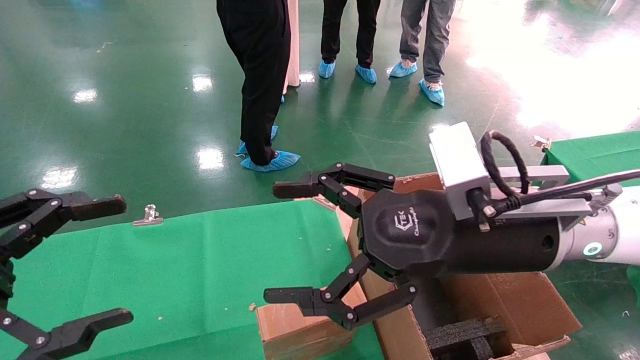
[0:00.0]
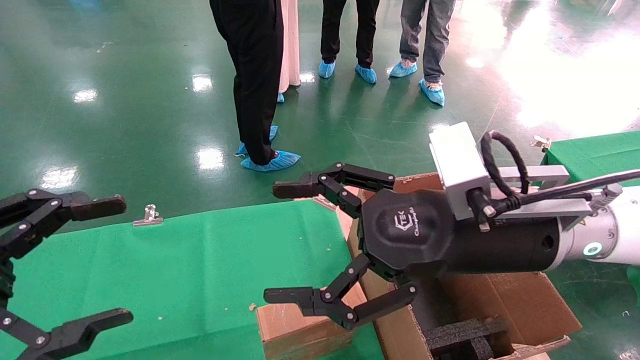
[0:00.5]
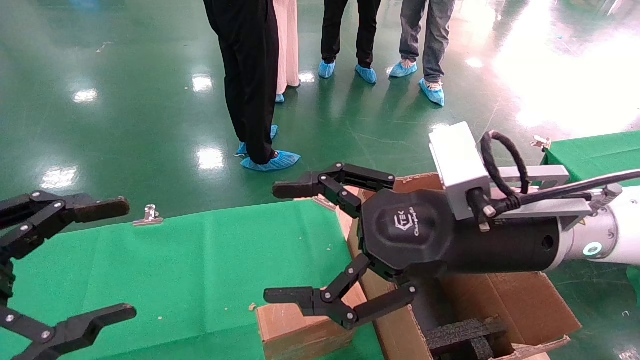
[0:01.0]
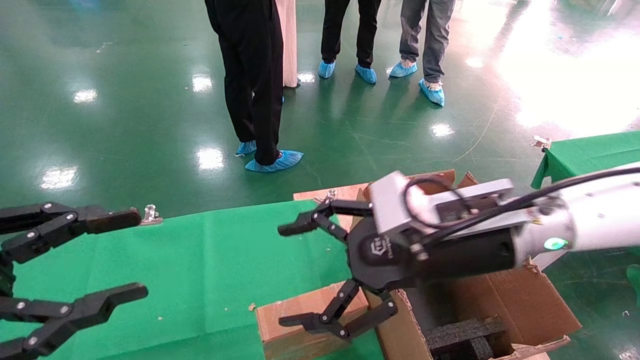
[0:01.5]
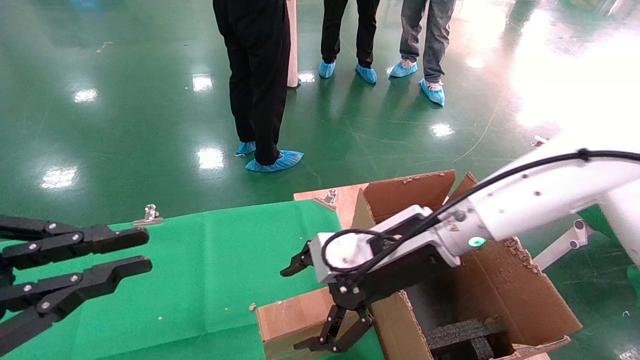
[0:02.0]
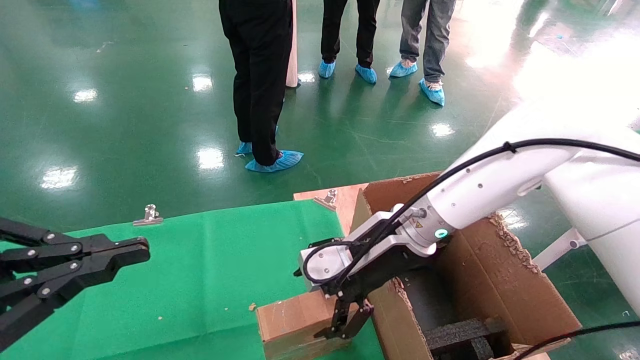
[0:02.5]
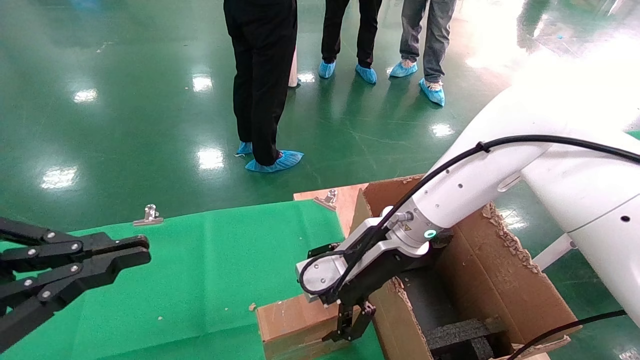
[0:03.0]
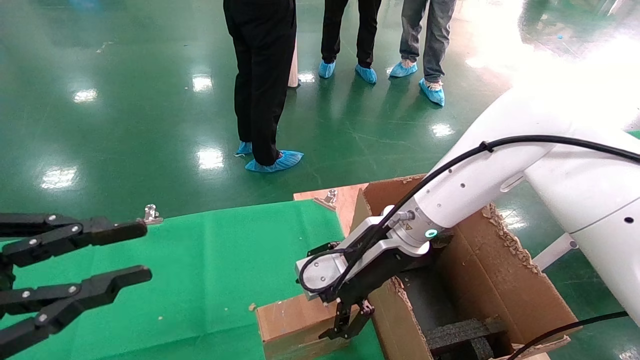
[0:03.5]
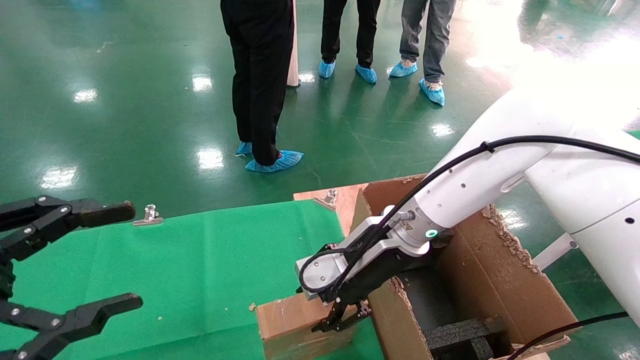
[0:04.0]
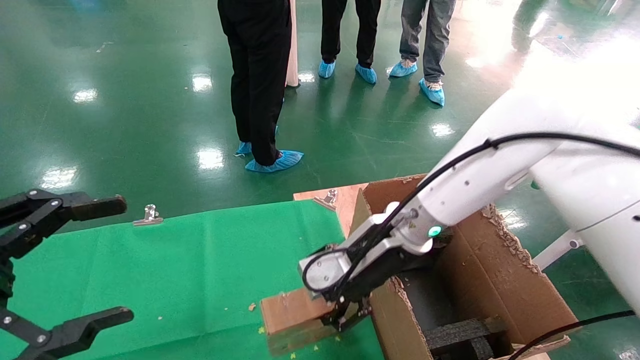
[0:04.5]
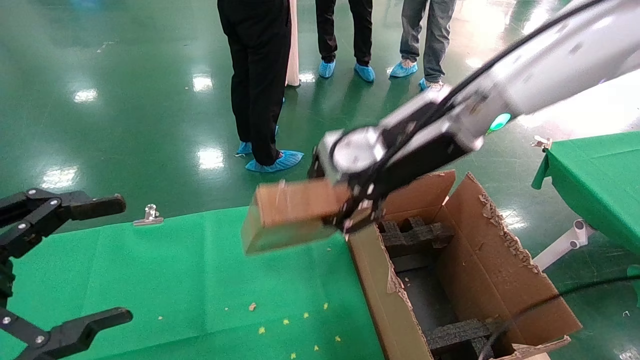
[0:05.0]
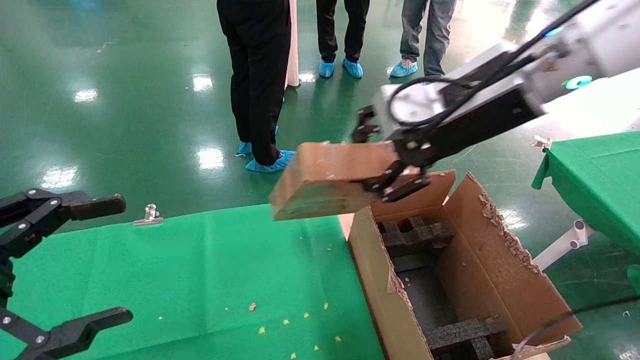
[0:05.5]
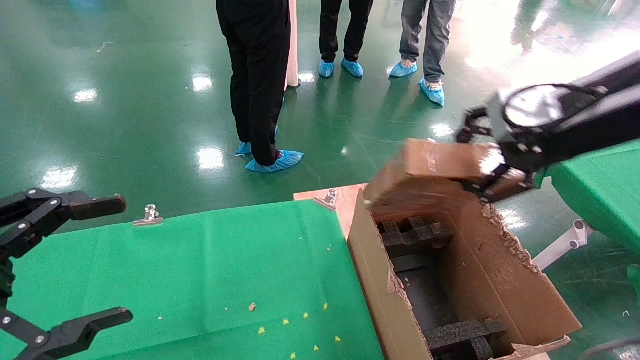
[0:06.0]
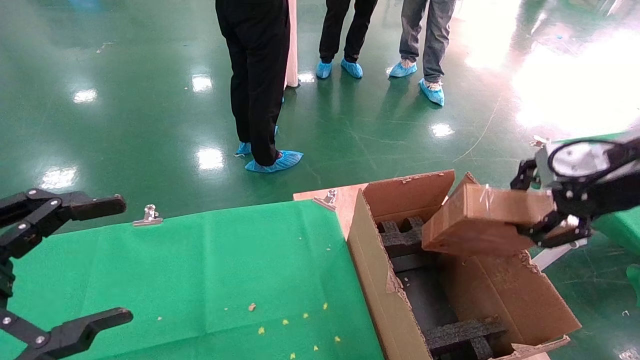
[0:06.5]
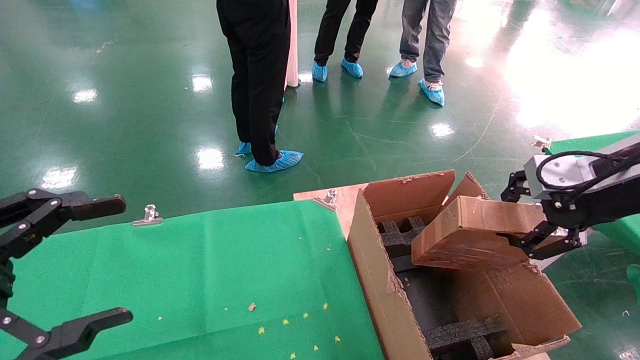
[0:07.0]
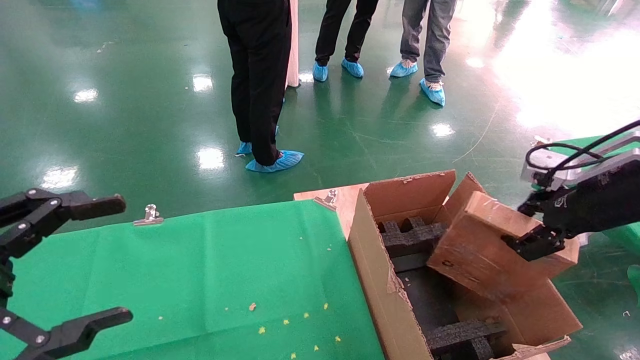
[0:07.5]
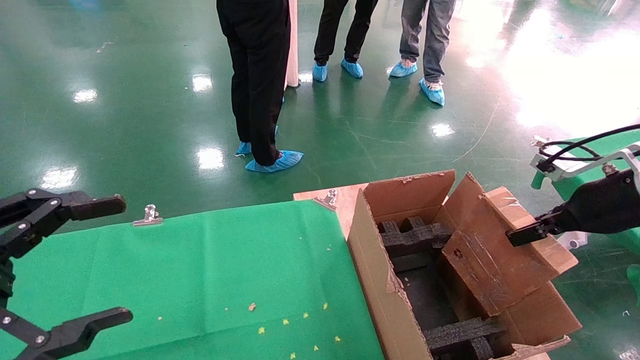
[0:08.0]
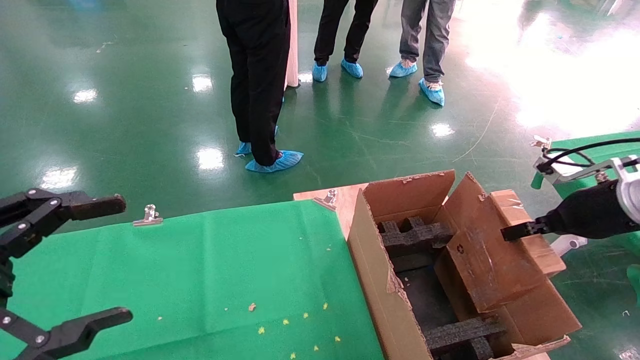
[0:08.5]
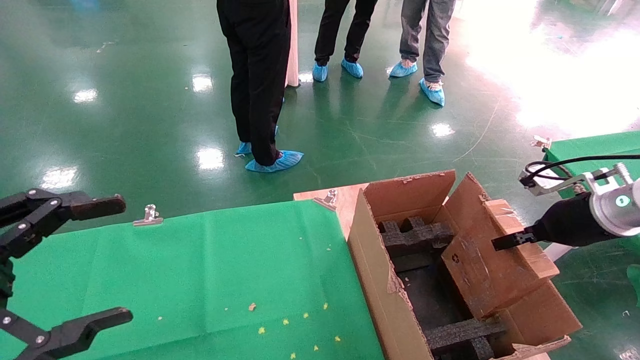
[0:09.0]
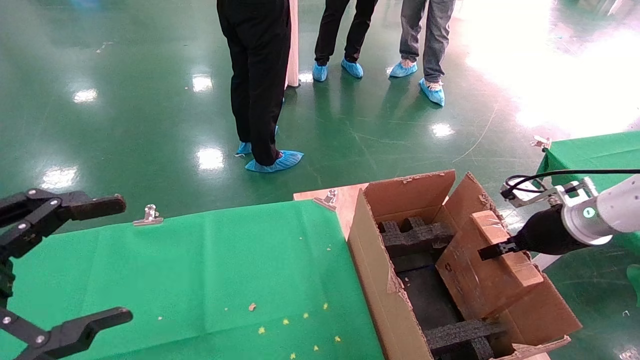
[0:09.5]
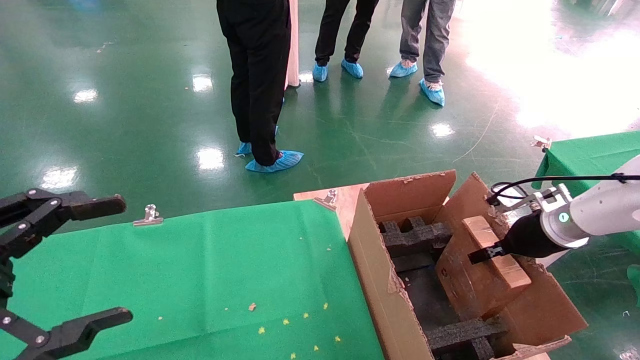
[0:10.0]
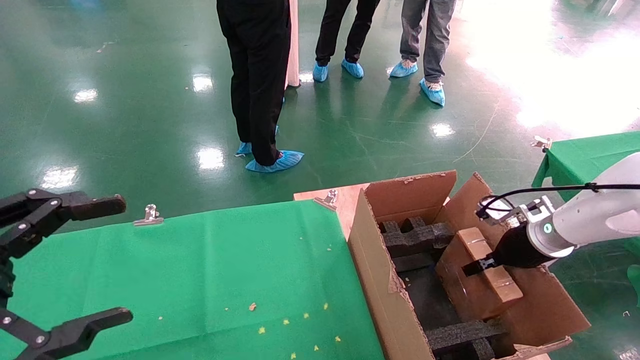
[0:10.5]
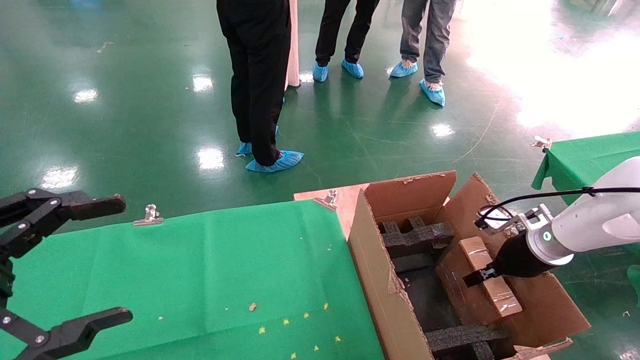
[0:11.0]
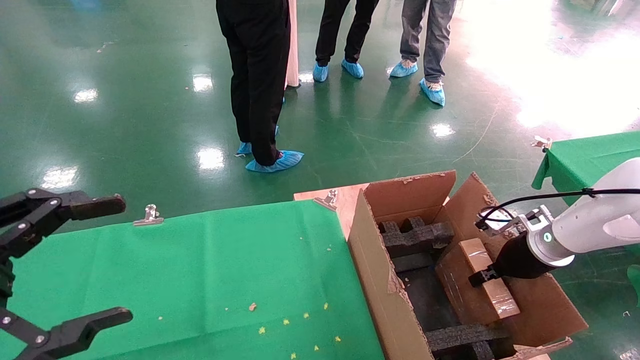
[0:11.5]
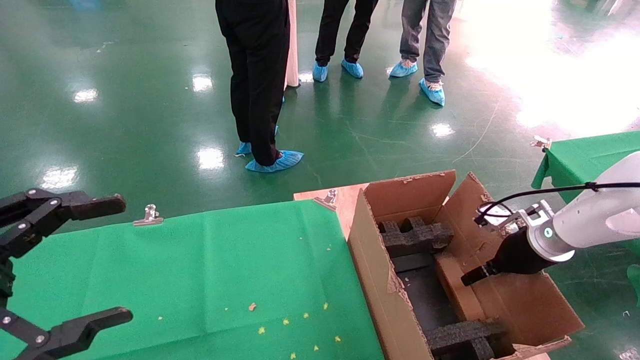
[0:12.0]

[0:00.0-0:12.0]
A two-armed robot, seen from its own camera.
Task of the whole recording: using a robotic arm to pick up a cardboard box and palace it the carton.
Step, 0:01.5 to 0:04.0: Pick up the mouse and the power cord paper box.
0:00.0 to 0:02.0: The right gripper is displaced forward by some 10 cm. Meanwhile the left gripper closes its fingers.
0:02.0 to 0:04.0: The right gripper shifts by about 5 cm, and closes up.
0:04.0 to 0:06.0: The left gripper opens up. Meanwhile the right gripper shifts approximately 30 cm to the right, upward and backward, and closes.
0:06.0 to 0:08.0: The right gripper moves downward and to the right, about 15 cm.
0:08.0 to 0:10.0: The right gripper travels downward and forward by approximately 15 cm.
0:10.0 to 0:12.0: The right gripper opens its fingers.

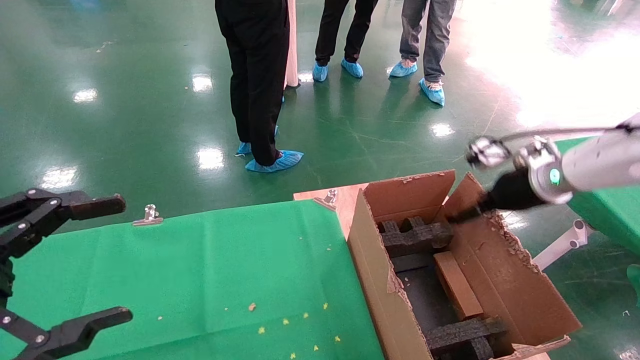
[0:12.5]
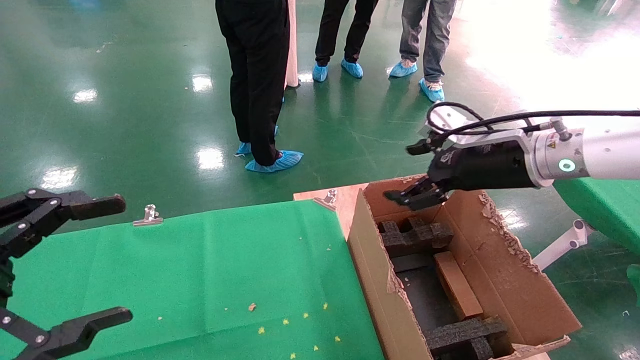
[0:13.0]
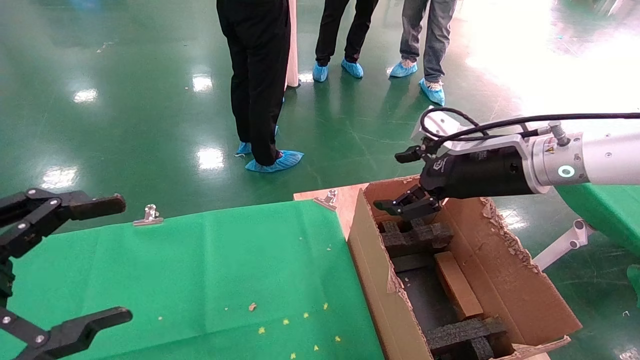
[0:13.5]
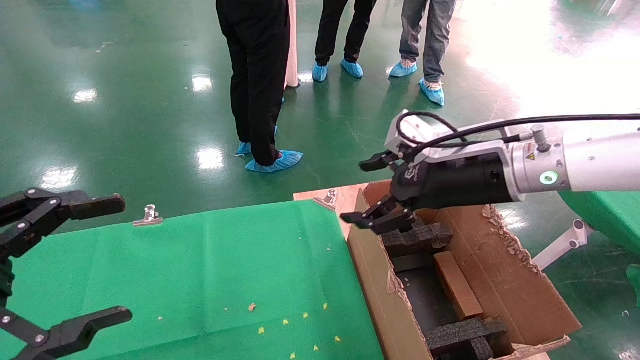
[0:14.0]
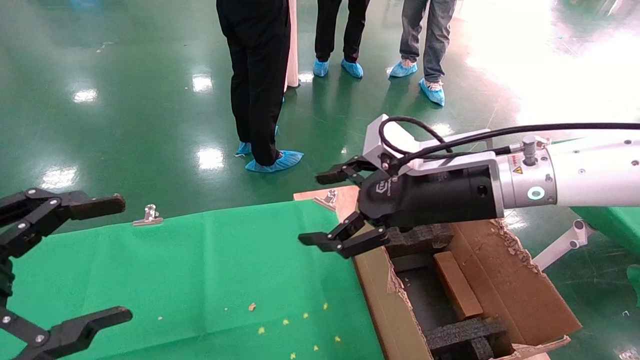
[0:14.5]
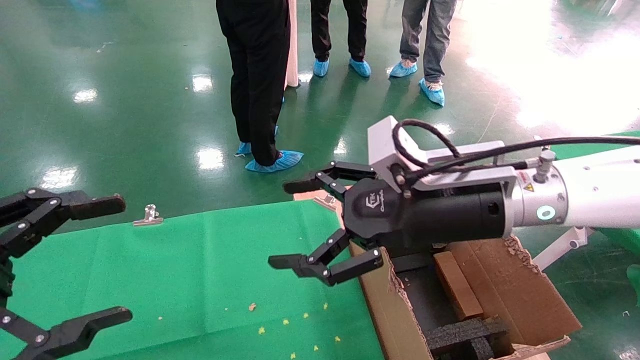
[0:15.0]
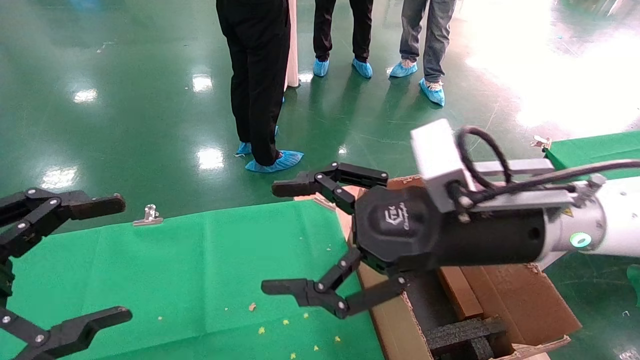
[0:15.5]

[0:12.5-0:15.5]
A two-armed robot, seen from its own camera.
Task of the whole recording: using a robotic arm to pick up a cardboard box and palace it the carton.
0:12.5 to 0:14.0: The right gripper is displaced to the left and backward by about 15 cm.
0:14.0 to 0:15.5: The right gripper shifts approximately 10 cm backward and to the left.

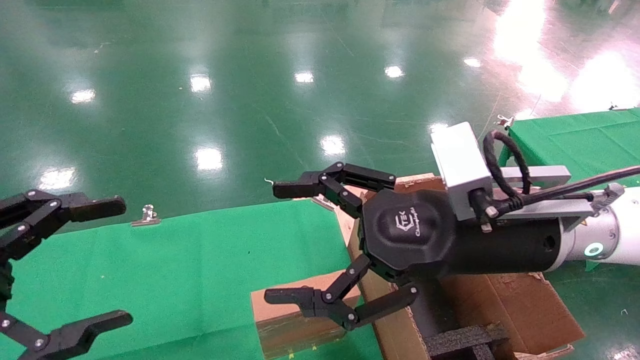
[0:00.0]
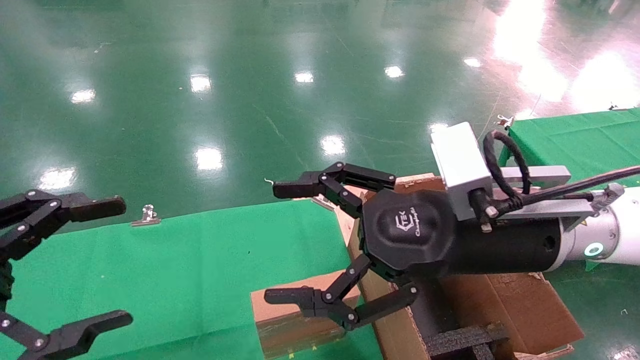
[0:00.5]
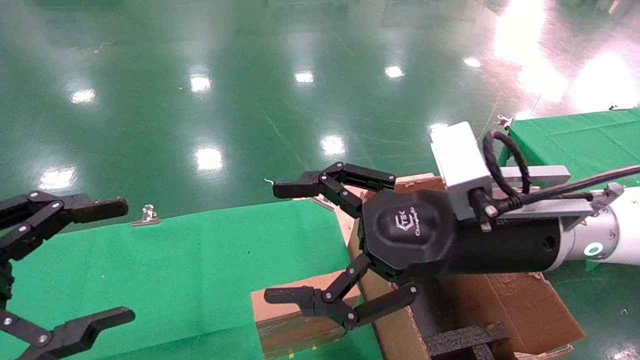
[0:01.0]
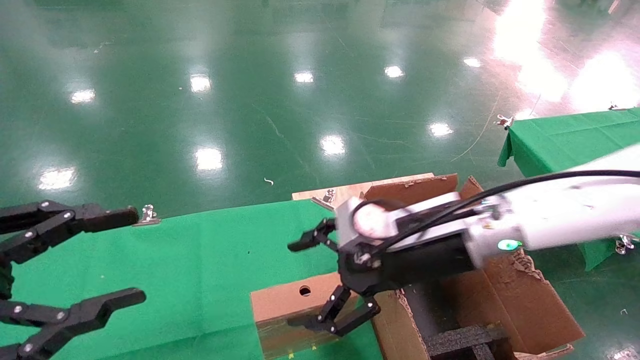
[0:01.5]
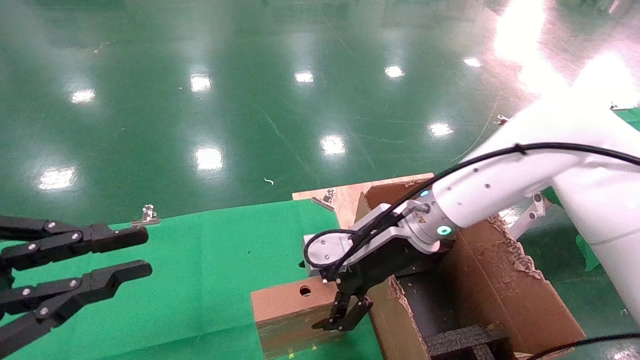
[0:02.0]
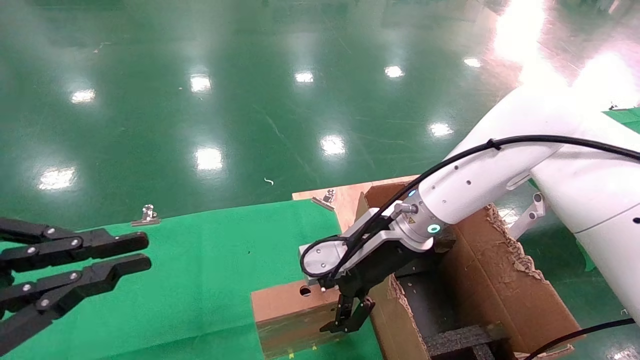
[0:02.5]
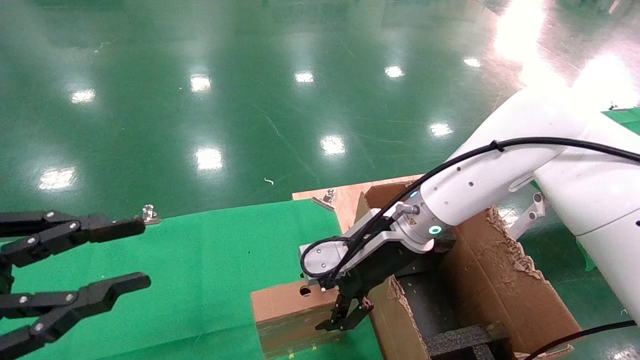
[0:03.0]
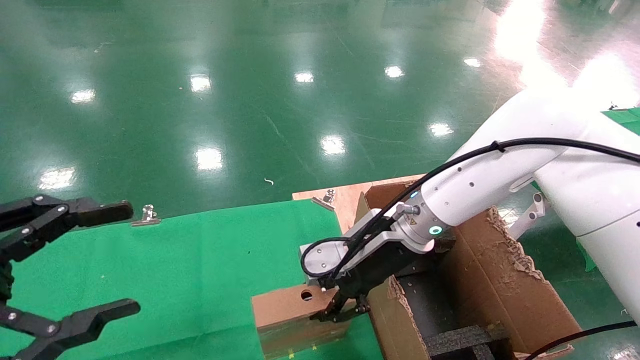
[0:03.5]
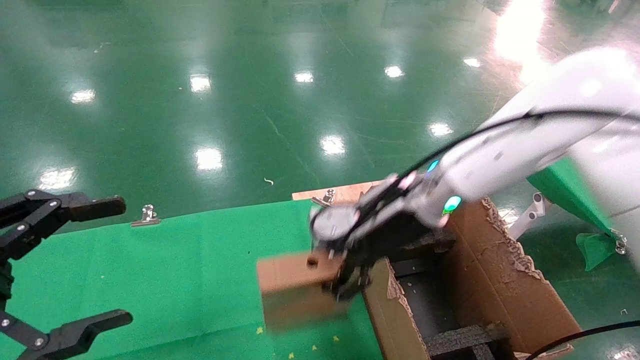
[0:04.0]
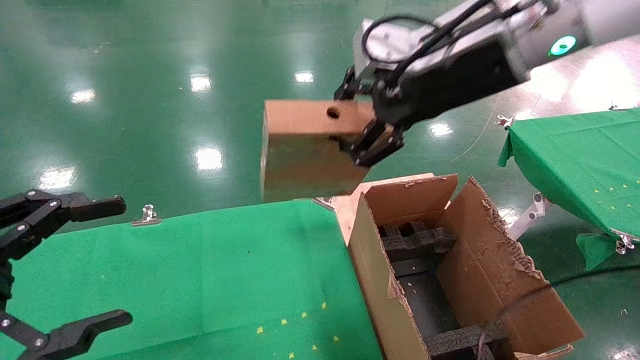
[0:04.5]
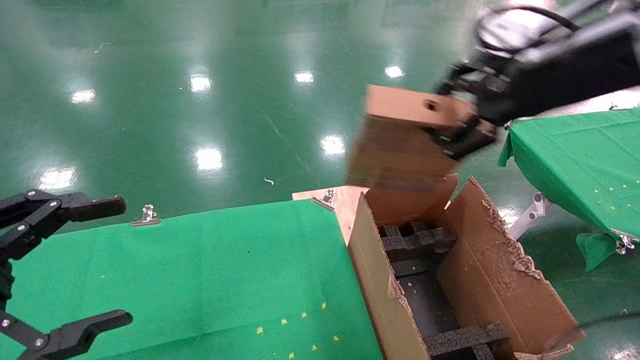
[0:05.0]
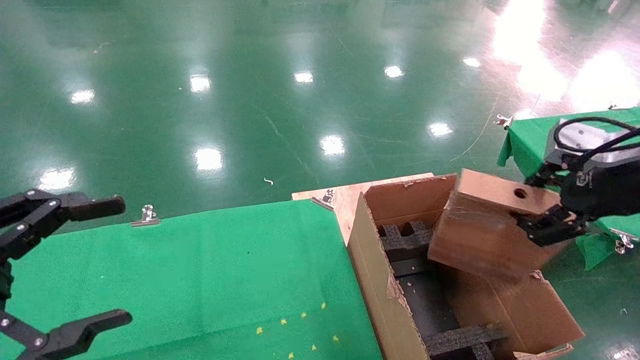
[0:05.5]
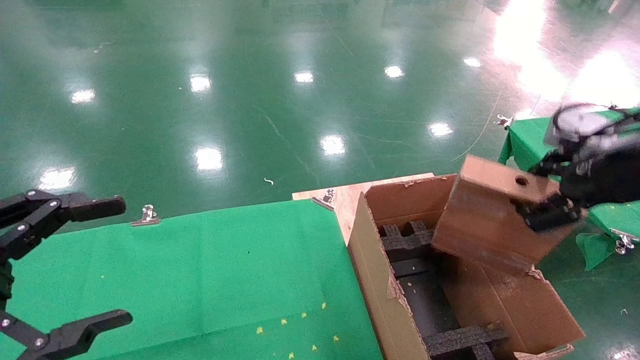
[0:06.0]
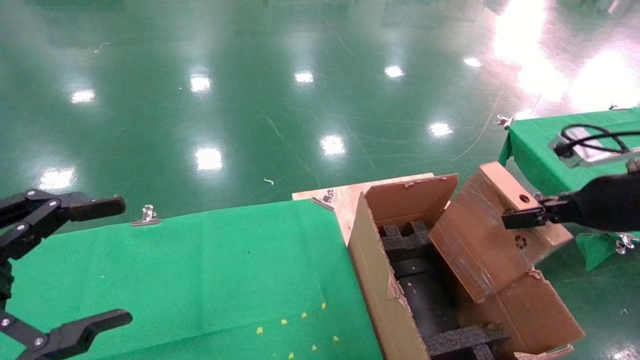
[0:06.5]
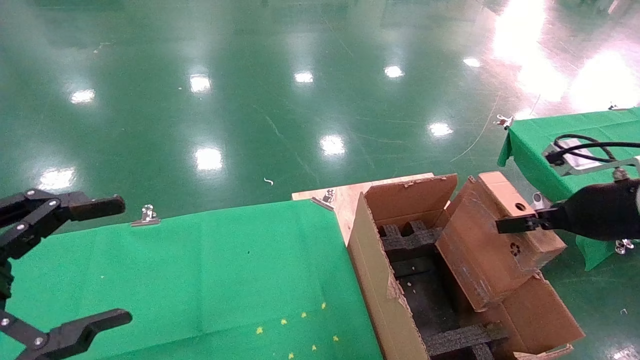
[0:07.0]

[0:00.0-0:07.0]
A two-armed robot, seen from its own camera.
Task of the whole recording: using a robotic arm to pick up a cardboard box and palace it the carton.
Step, 0:01.5 to 0:03.5: Pick up the mouse and the power cord paper box.
0:00.0 to 0:02.0: The left gripper closes up. Meanwhile the right gripper travels forward and downward by approximately 15 cm.
0:02.0 to 0:03.5: The left gripper opens, while the right gripper closes up.
0:03.5 to 0:05.0: The right gripper heads upward, to the right and backward, covering some 30 cm, and closes its fingers.
0:05.0 to 0:07.0: The right gripper moves downward and to the right, approximately 20 cm.
